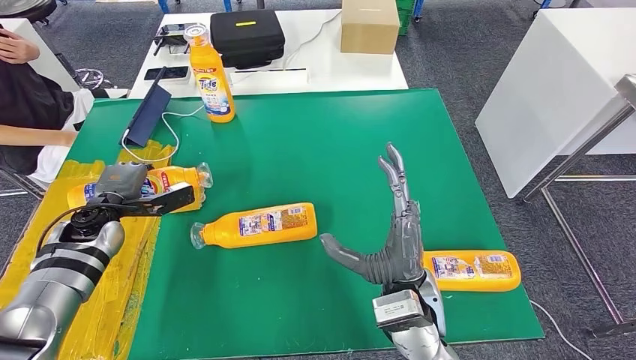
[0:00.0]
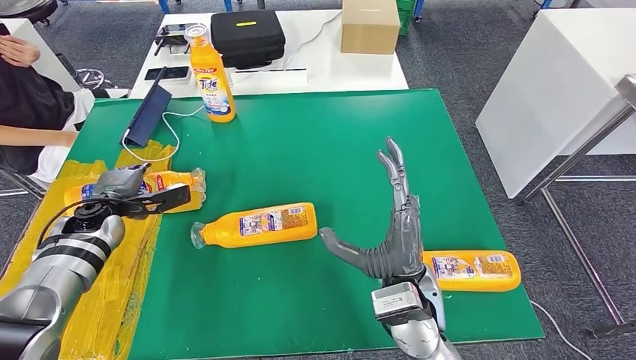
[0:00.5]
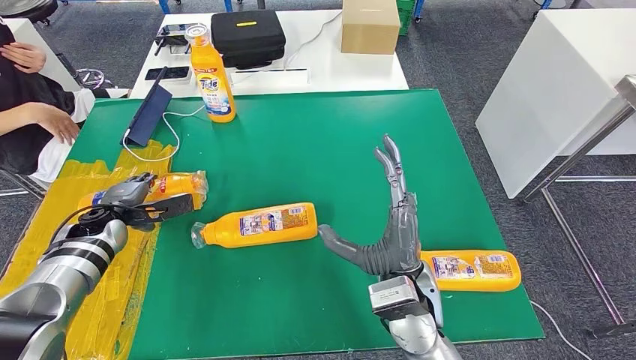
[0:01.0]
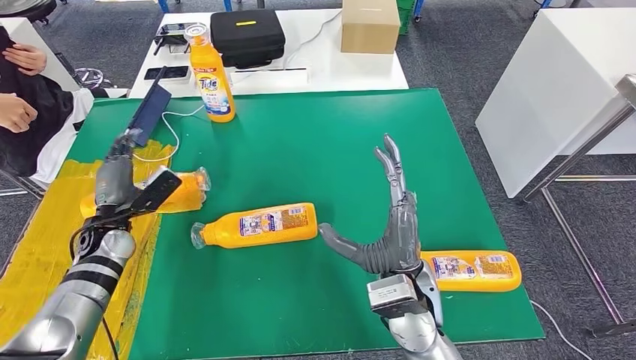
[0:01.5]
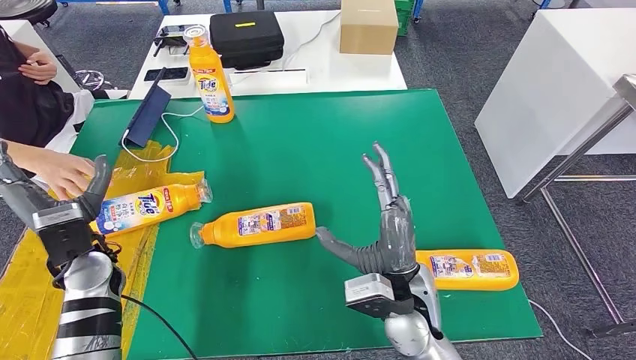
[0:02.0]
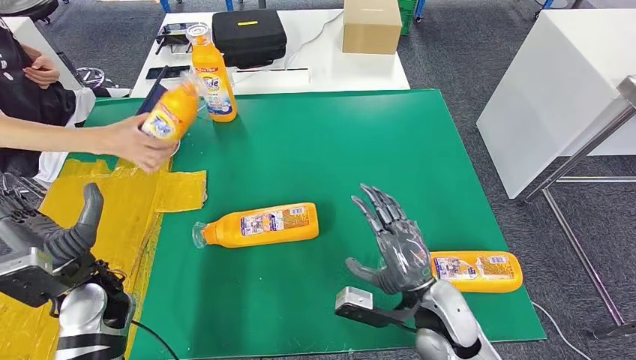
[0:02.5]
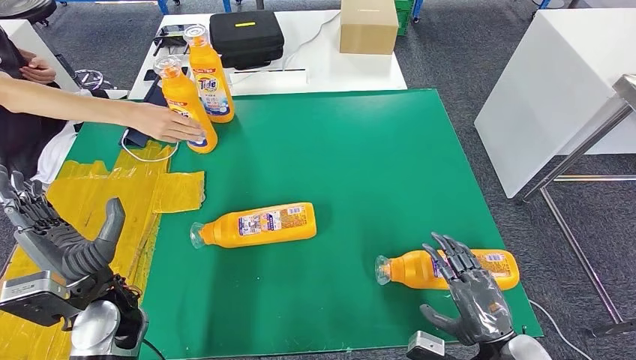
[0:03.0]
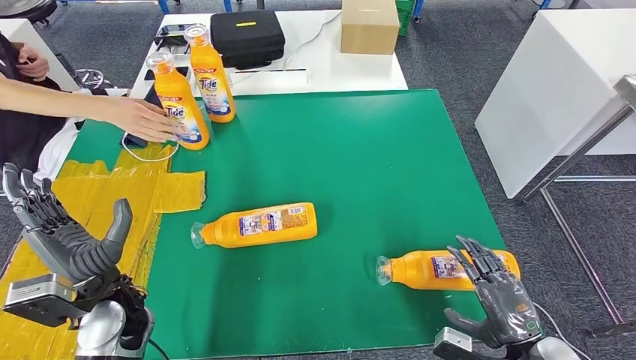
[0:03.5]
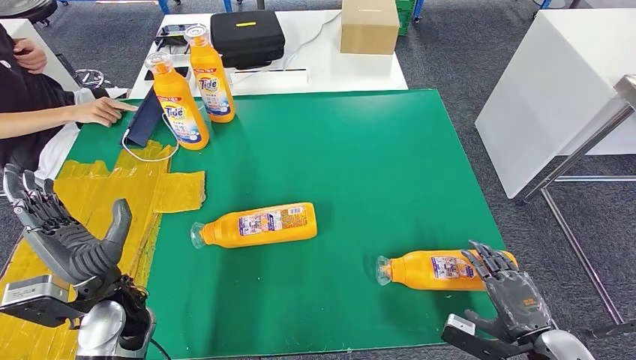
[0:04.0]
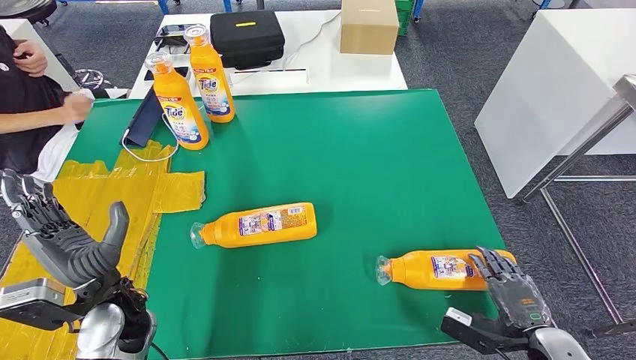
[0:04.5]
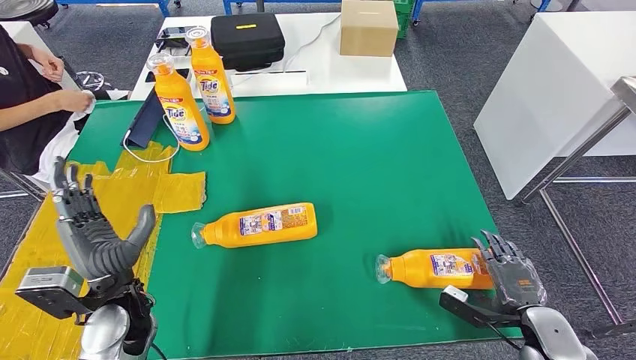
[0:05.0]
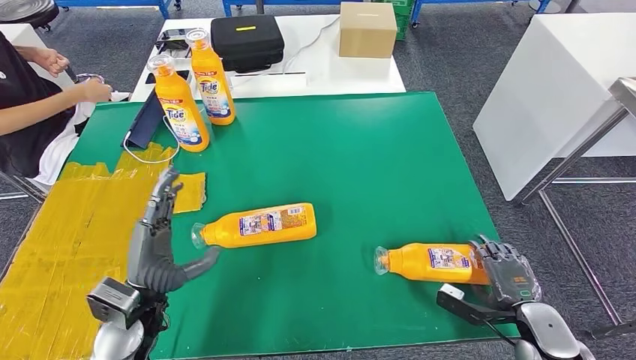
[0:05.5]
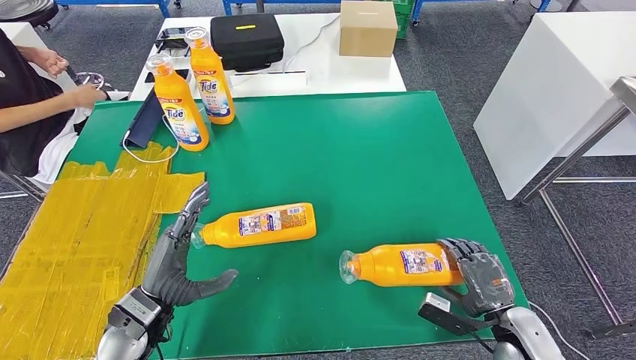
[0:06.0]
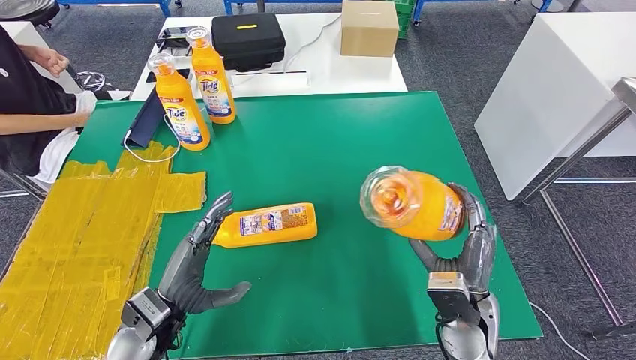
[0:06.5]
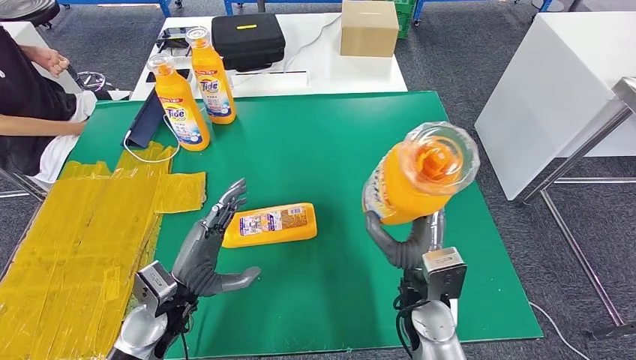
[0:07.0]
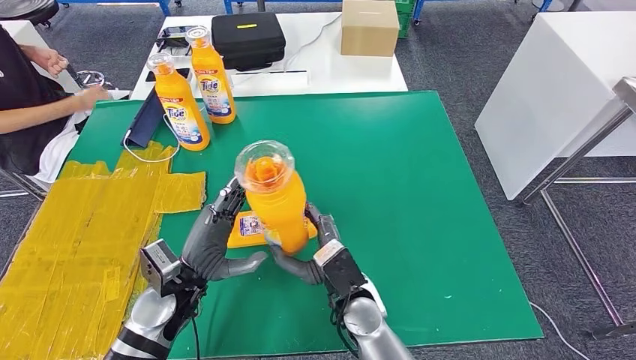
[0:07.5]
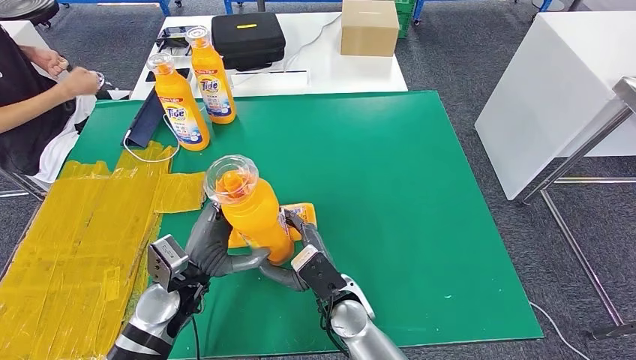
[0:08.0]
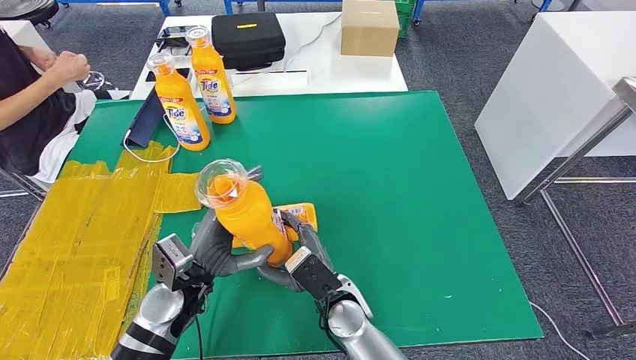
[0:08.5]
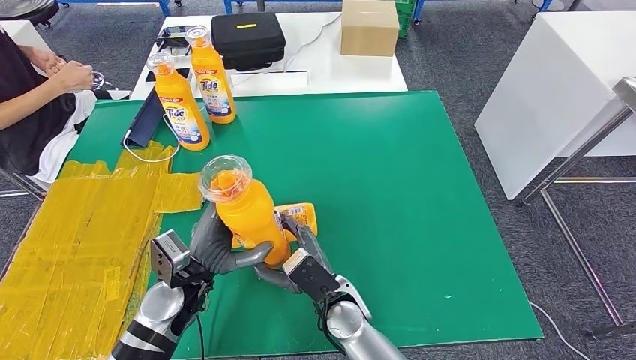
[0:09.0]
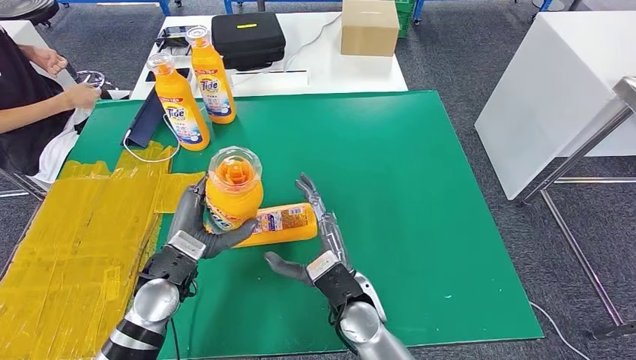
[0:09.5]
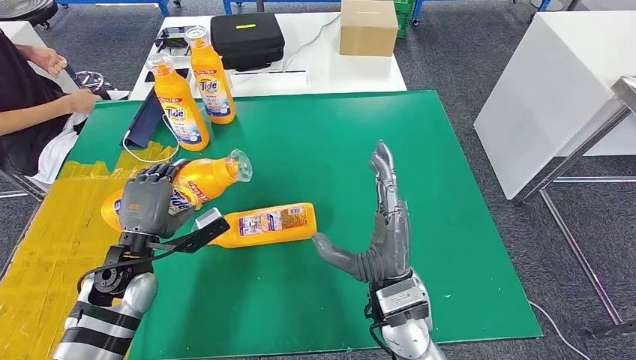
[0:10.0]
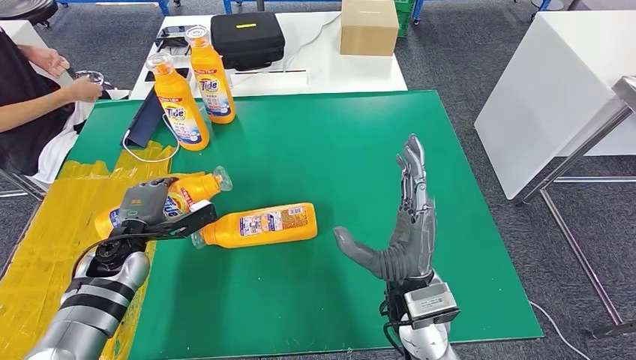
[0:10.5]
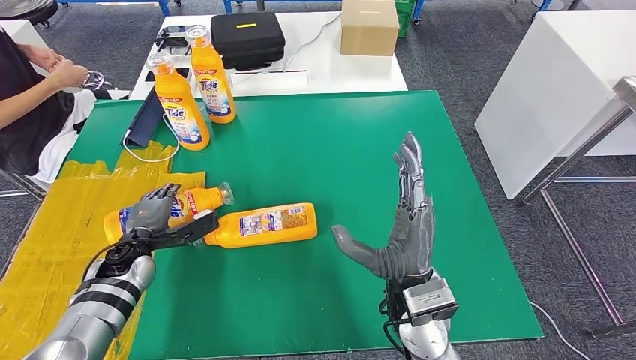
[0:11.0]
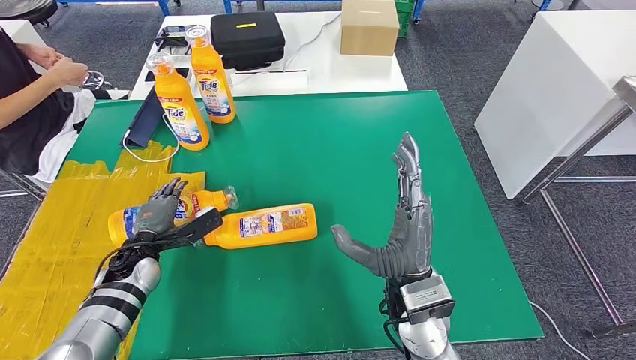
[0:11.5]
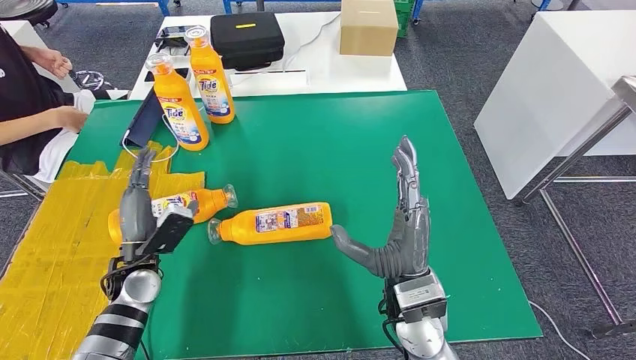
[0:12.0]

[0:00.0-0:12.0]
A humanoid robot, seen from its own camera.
Step, 0:02.0 to 0:07.5: Pick up the bottle from the table.
0:00.0 to 0:02.0: The left hand travels backward by some 10 cm.
0:06.0 to 0:08.0: The right hand goes some 30 cm to the left. The left hand moves roughly 5 cm.
0:08.0 to 0:10.0: The right hand goes approximately 10 cm upward and to the right, while the left hand goes roughly 10 cm to the left.
0:10.0 to 0:12.0: The left hand heads downward, covering approximately 5 cm.

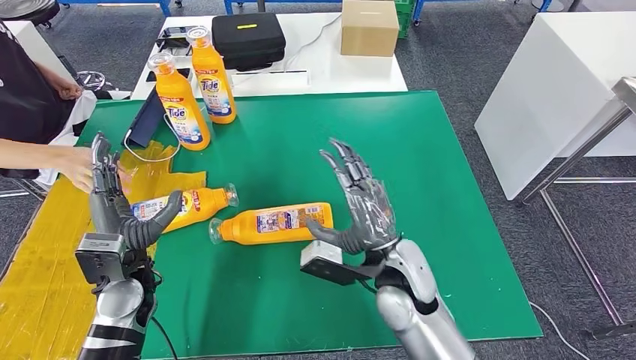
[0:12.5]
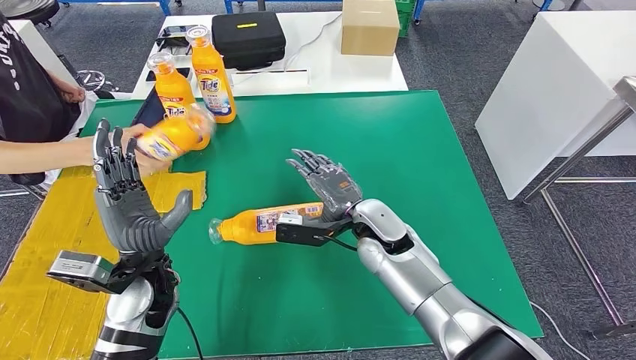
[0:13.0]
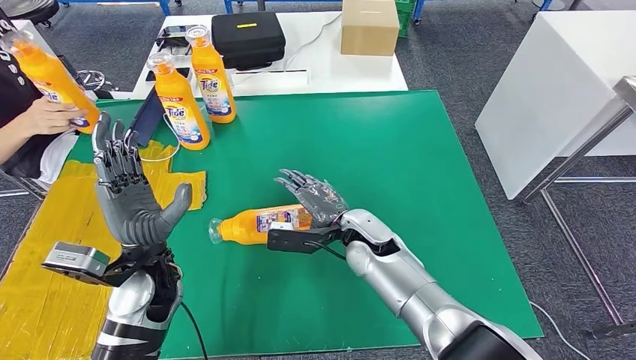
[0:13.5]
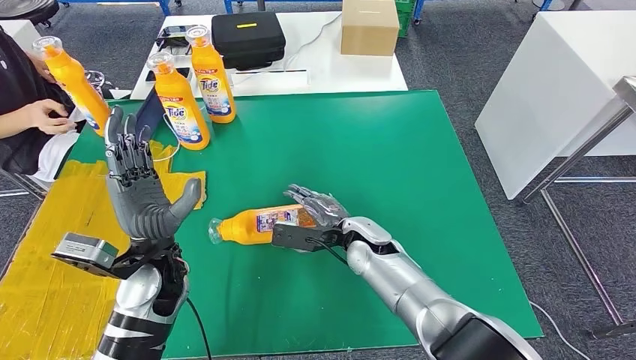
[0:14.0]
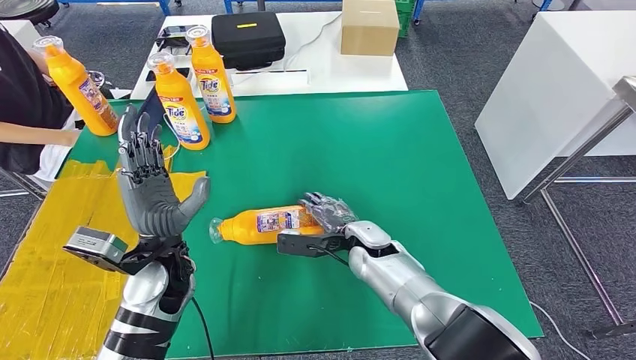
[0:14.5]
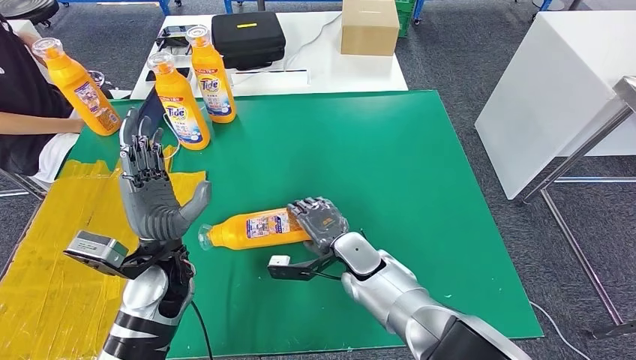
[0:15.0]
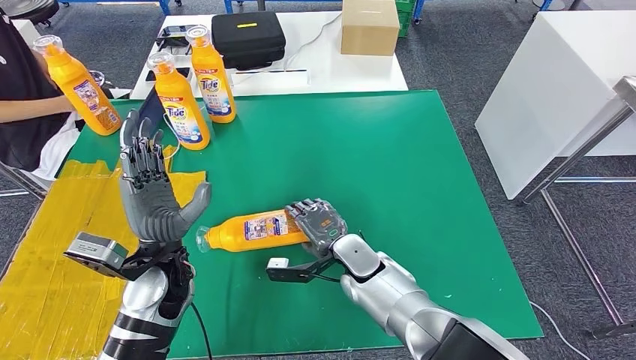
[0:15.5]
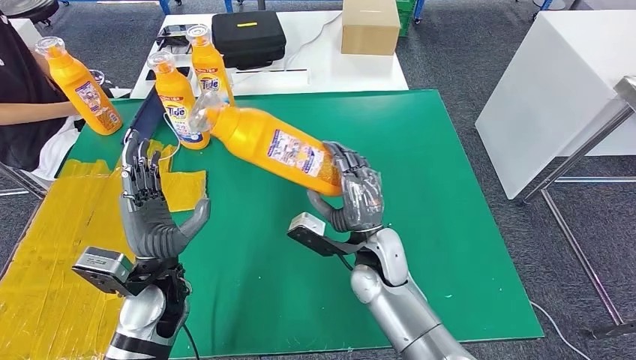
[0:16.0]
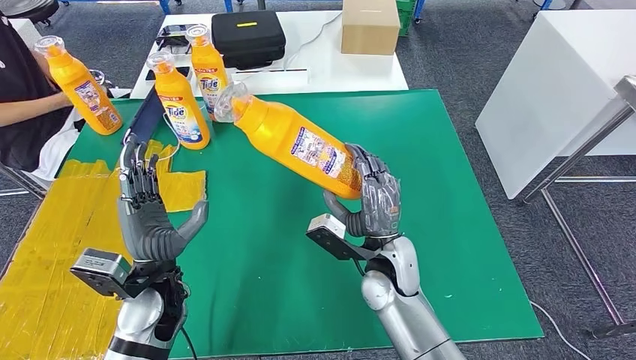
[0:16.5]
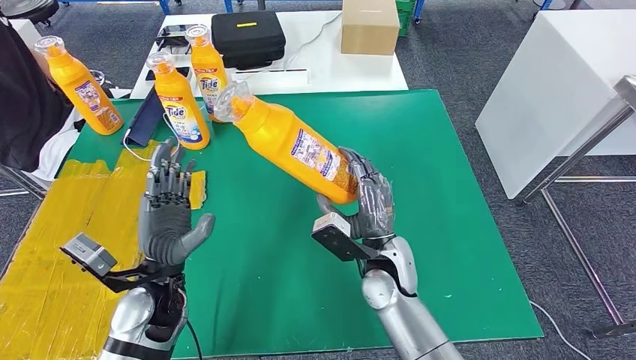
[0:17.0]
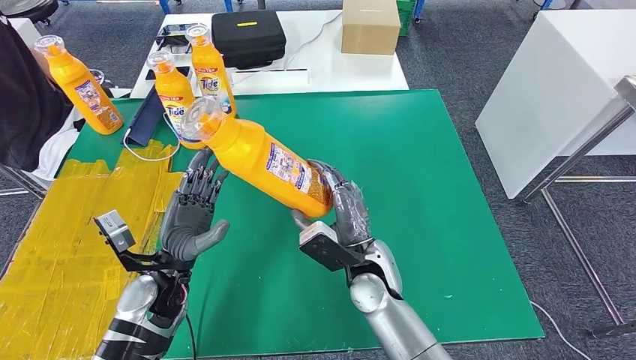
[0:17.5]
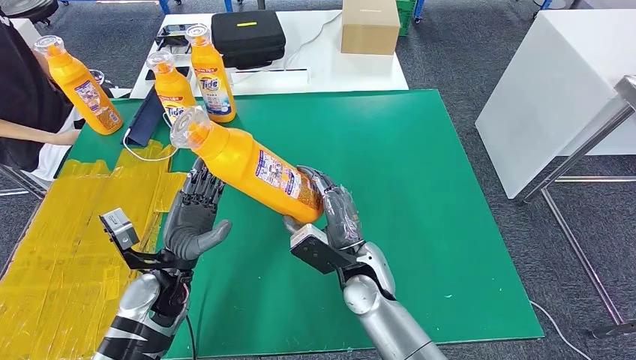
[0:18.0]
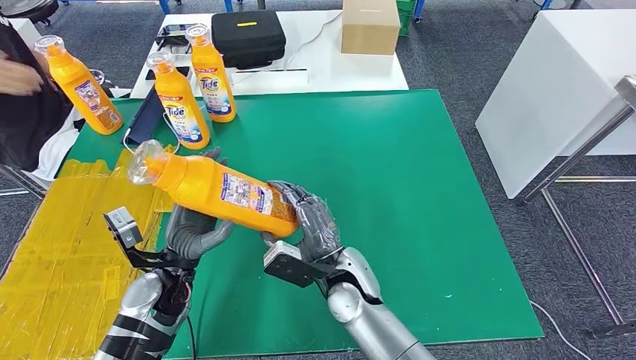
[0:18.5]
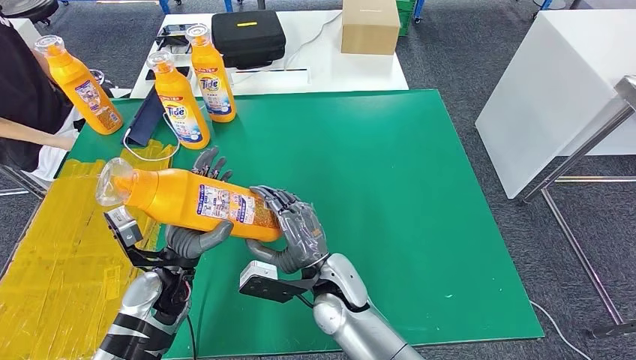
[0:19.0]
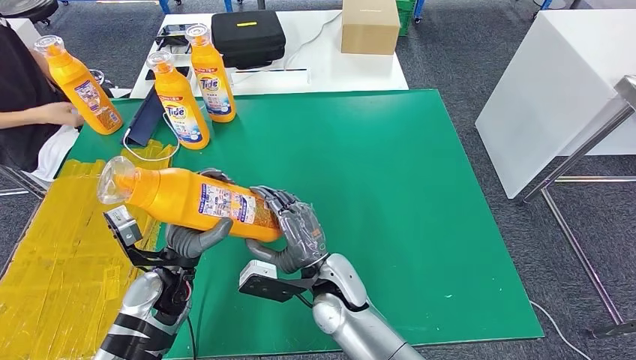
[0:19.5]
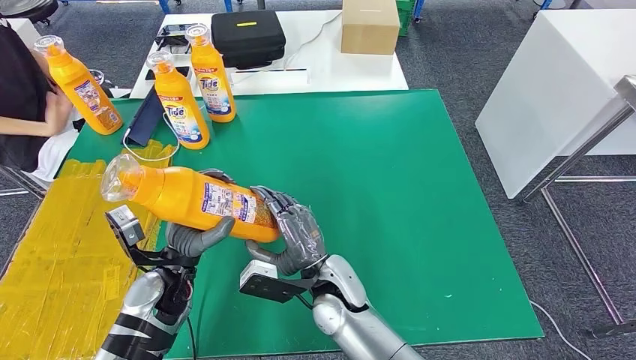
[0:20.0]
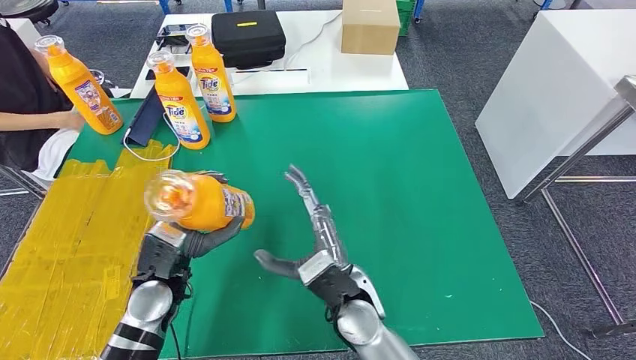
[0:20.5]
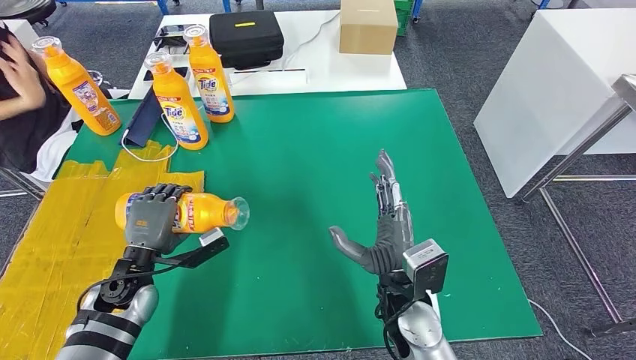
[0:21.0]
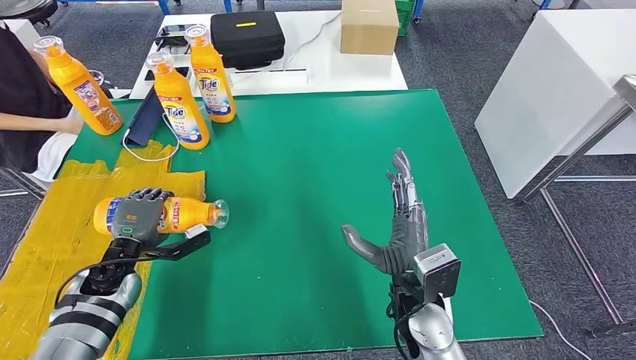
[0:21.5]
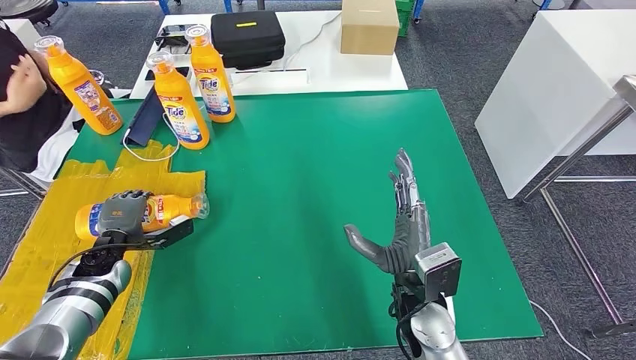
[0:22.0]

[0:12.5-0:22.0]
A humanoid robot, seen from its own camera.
Step, 0:12.5 to 0:16.0: Pick up the bottle from the table.
Step, 0:16.5 to 0:22.0: Flip the bottle to face forward.
0:18.0 to 0:20.0: The right hand shifts roughly 5 cm to the left.
